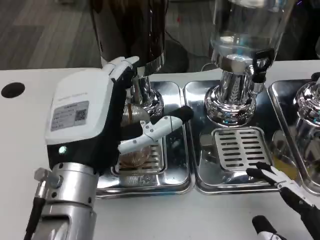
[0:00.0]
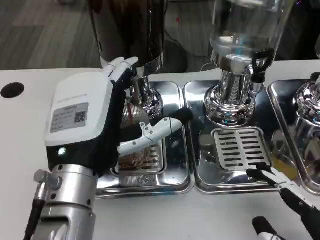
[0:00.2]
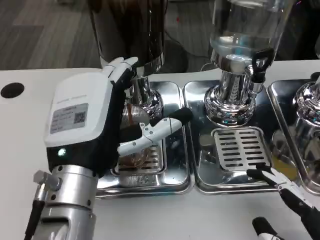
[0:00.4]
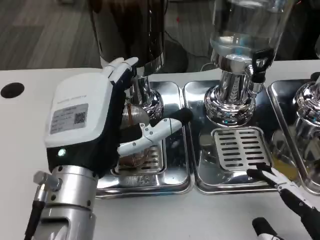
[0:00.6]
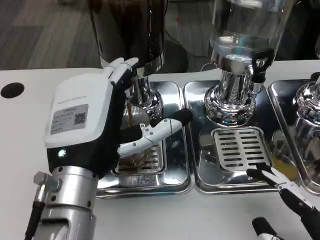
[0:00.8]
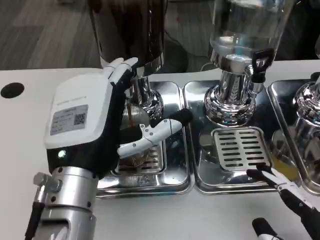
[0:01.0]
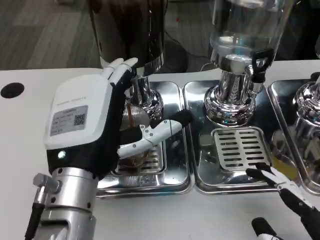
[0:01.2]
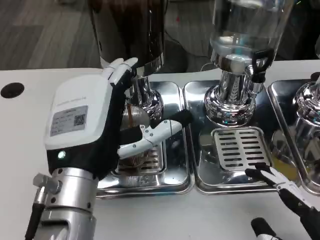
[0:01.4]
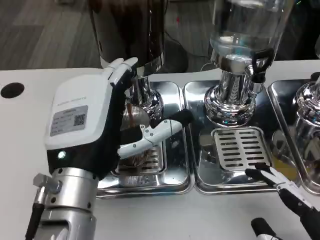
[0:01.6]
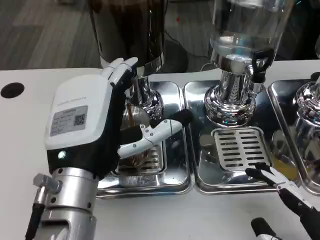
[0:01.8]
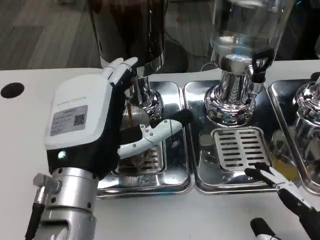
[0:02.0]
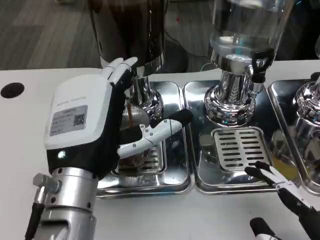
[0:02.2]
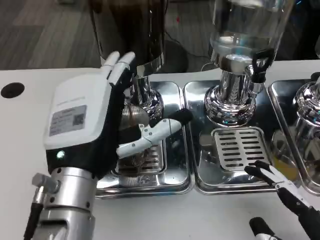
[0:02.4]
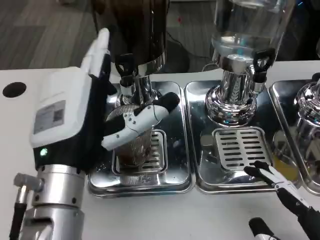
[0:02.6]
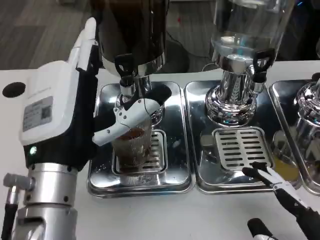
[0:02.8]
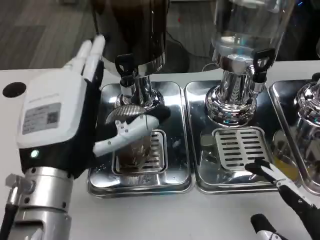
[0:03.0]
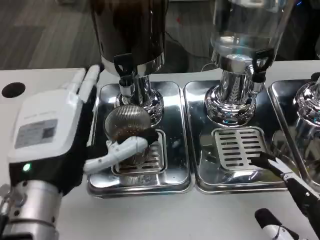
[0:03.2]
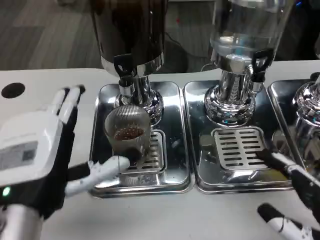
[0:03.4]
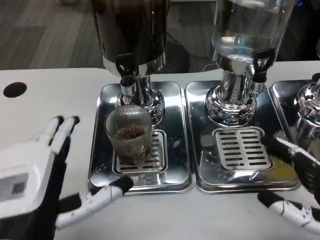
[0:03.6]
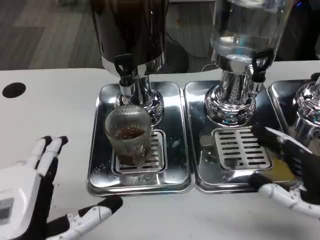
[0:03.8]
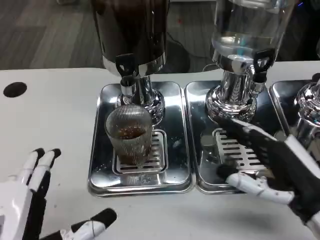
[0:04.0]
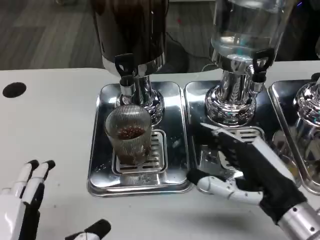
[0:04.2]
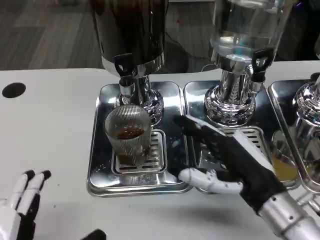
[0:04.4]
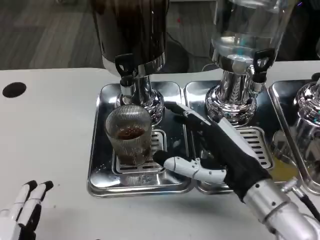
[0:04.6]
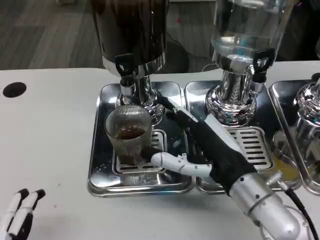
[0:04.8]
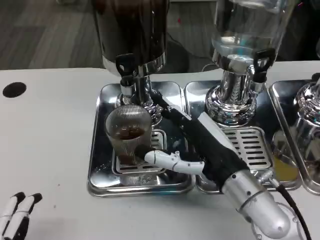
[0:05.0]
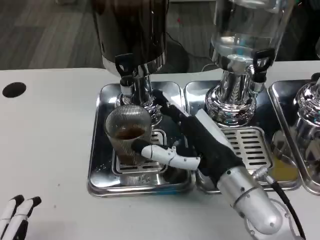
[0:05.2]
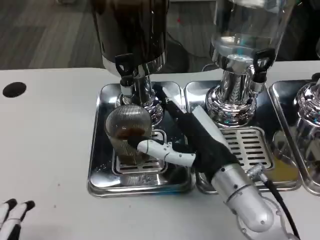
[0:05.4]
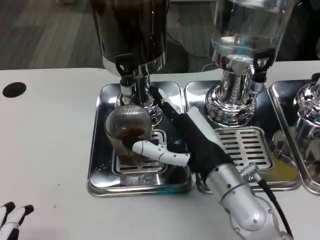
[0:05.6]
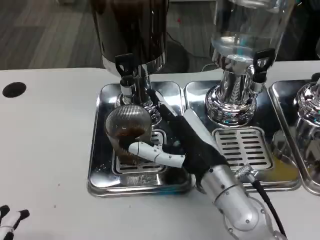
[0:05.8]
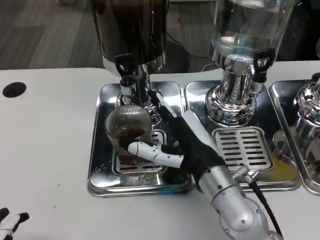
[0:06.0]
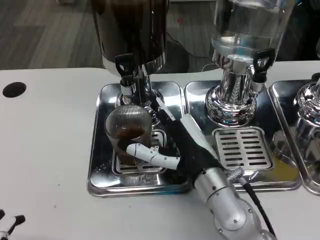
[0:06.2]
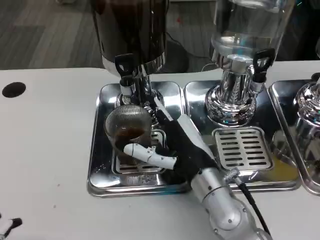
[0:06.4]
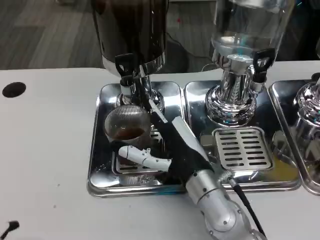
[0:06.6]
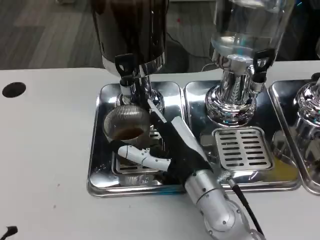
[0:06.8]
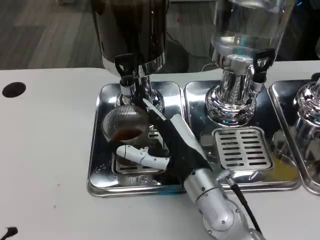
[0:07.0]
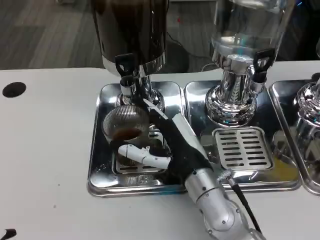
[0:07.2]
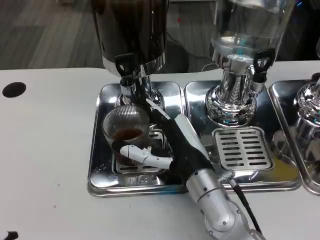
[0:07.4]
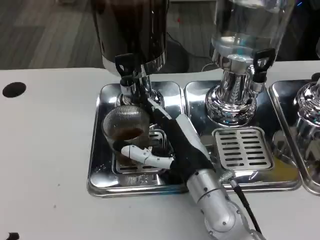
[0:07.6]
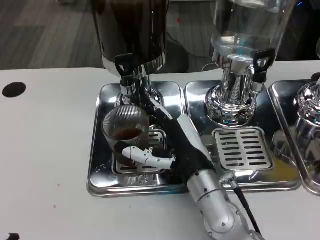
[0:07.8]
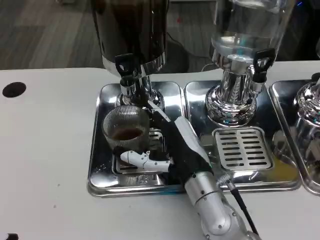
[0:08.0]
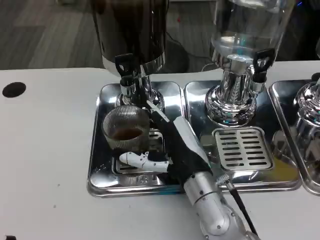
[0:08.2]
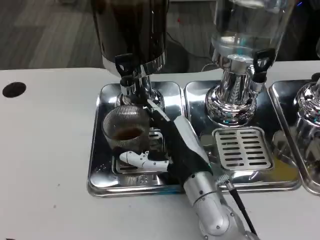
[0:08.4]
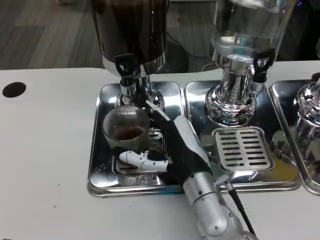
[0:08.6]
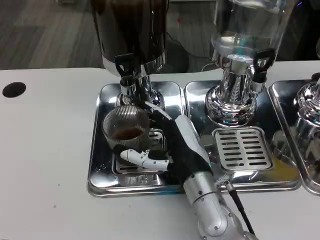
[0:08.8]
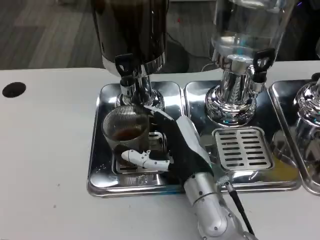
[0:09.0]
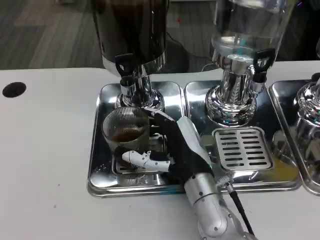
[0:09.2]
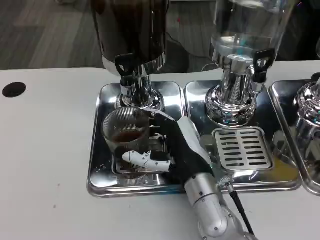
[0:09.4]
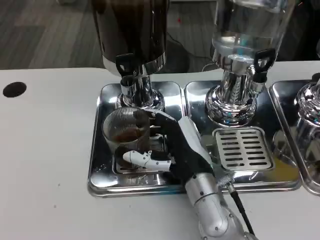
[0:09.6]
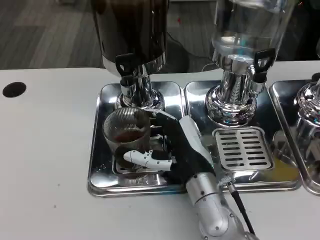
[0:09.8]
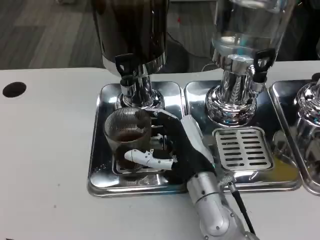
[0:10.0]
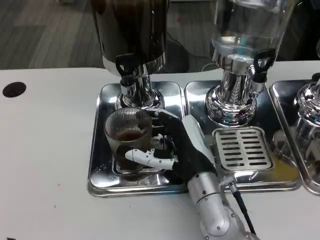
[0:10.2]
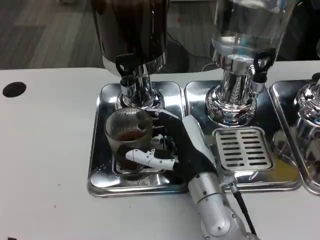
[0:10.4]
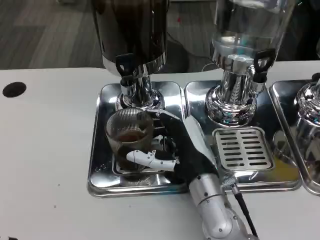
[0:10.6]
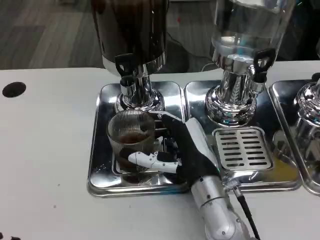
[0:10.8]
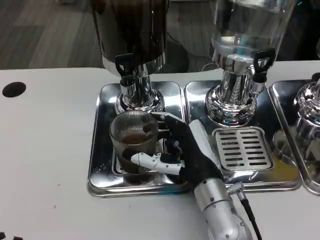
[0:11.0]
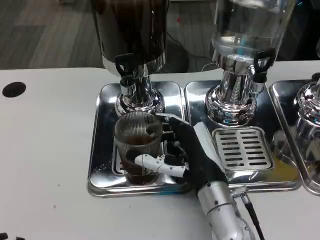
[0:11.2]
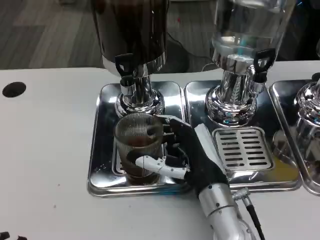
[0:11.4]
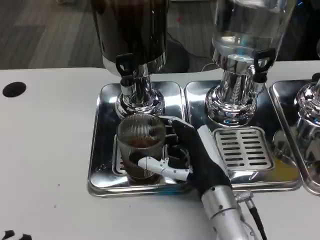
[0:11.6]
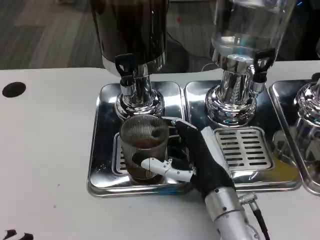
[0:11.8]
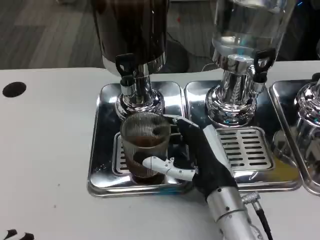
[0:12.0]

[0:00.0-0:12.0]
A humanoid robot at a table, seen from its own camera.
Task of the whole recording: Grasp the cup under the faucet to collect the drink, then remove the cup.
0:00.0 to 0:01.6: Neither hand changes place.
0:03.0 to 0:04.4: The left hand heads backward, covering some 15 cm, while the right hand heads forward and to the left, covering some 15 cm.
0:04.4 to 0:06.0: The right hand moves to the left, roughly 10 cm.
0:06.0 to 0:07.6: The hands make only small movements.
0:07.6 to 0:09.0: The two hands keep their place.
0:09.0 to 0:10.4: Both hands stay put.
0:10.4 to 0:12.0: The hands stay close to where they were, moving slightly.

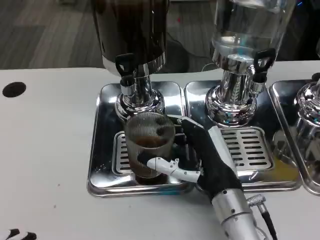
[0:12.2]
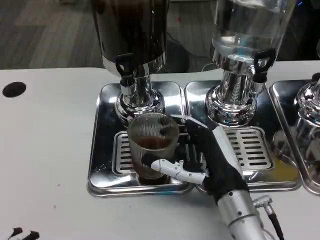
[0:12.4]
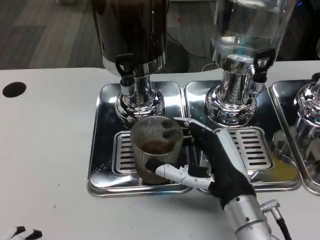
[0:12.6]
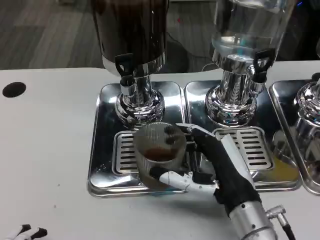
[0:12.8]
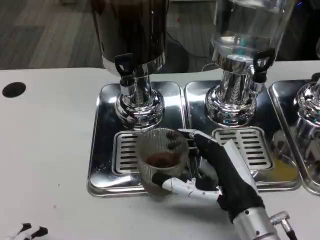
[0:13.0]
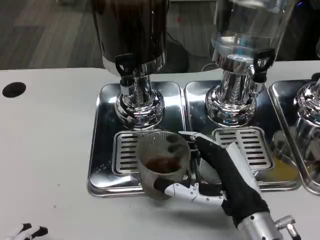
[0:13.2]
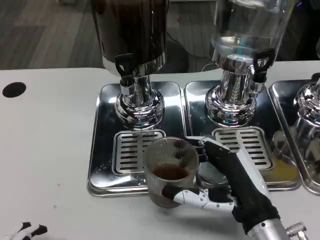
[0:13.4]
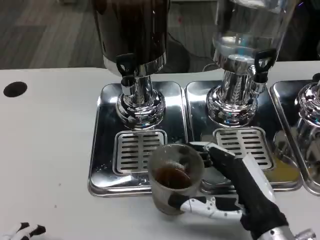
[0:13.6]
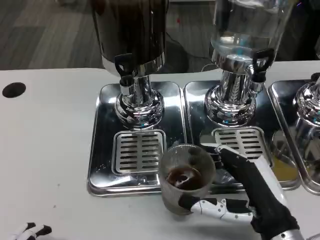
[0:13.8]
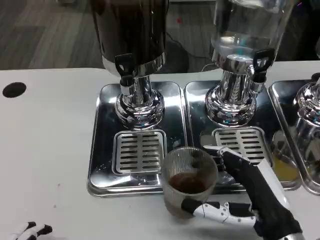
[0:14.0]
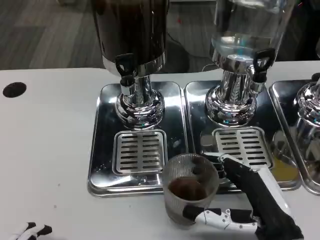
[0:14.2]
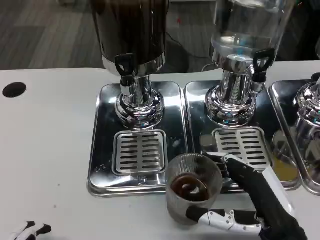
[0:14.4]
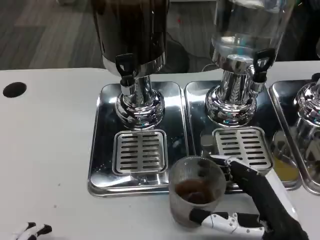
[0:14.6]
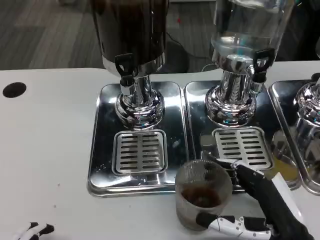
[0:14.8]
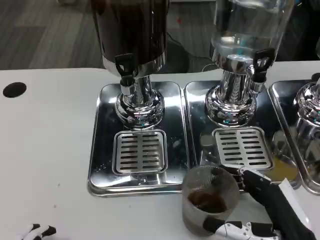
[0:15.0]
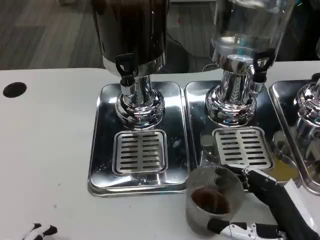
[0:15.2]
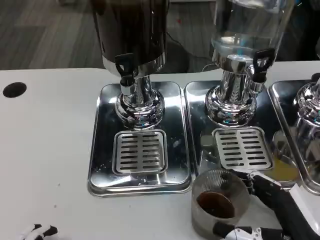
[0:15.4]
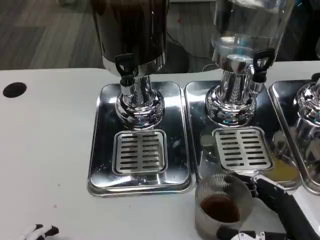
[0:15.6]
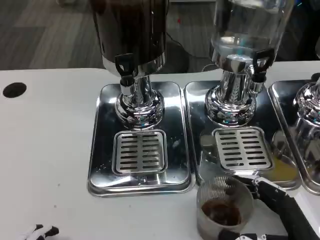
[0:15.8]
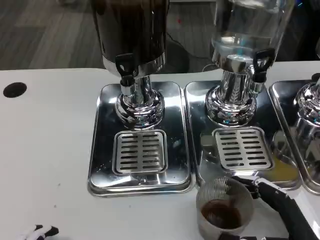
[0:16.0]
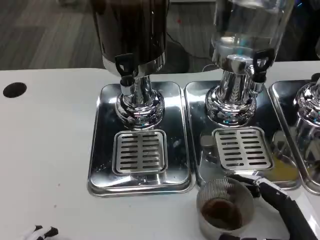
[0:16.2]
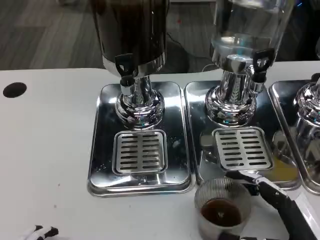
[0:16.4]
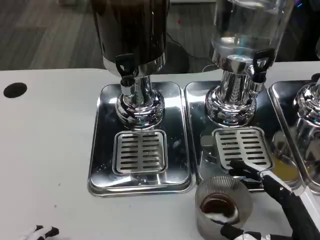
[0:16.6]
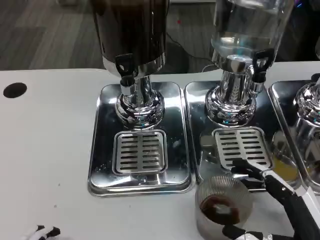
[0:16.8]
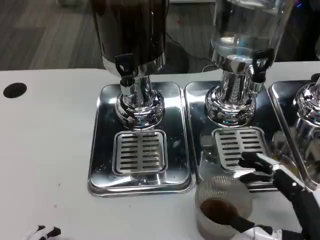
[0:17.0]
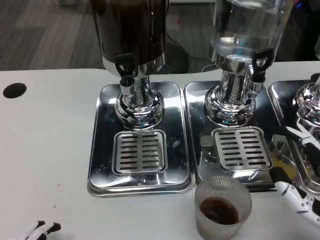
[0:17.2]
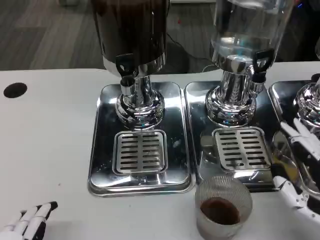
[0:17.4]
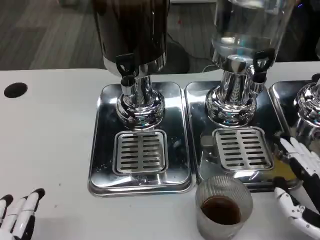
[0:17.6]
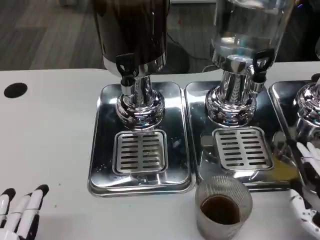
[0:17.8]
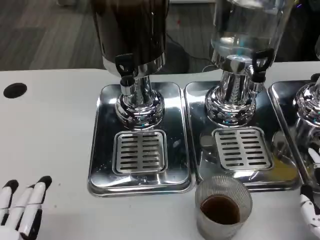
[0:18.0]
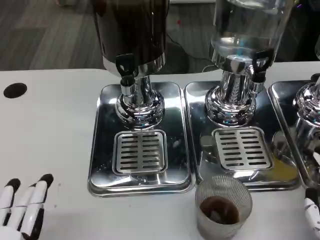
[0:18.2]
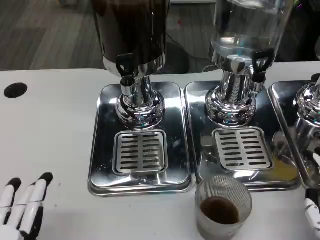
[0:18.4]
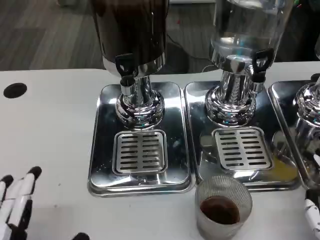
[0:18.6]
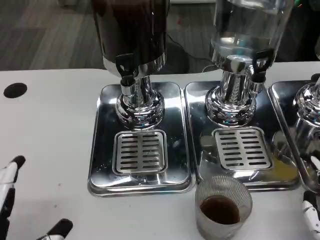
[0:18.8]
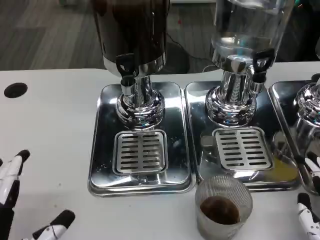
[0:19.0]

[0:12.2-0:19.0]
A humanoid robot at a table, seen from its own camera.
Task of the whole recording: Grasp the cup under the faucet to collect the drink, then remove the cup.
0:12.2 to 0:13.6: The right hand goes about 10 cm to the right and backward.
0:13.6 to 0:15.0: The right hand shifts by about 5 cm.
0:15.0 to 0:16.2: The hands make only small movements.
0:16.2 to 0:17.6: The right hand ends up roughly 5 cm from where it was.
0:17.6 to 0:19.0: The left hand shifts by about 5 cm.

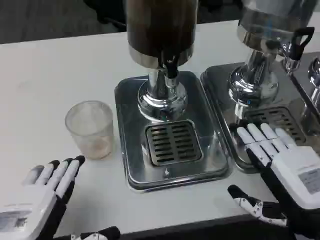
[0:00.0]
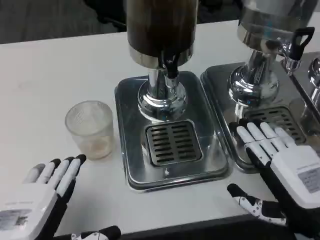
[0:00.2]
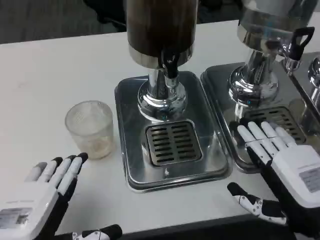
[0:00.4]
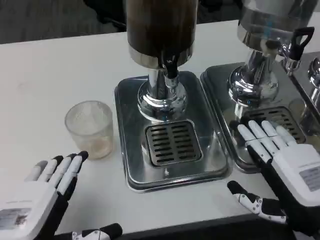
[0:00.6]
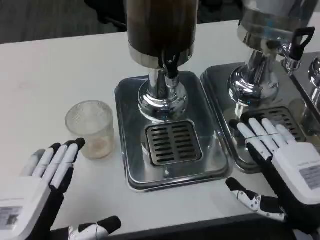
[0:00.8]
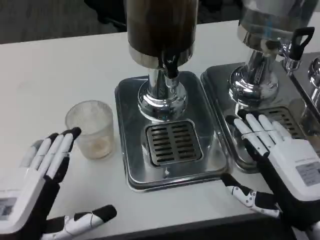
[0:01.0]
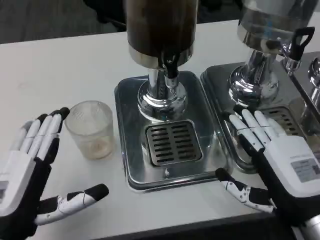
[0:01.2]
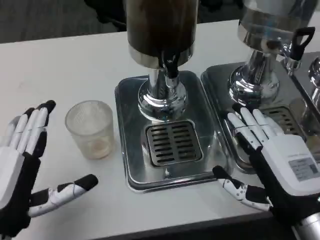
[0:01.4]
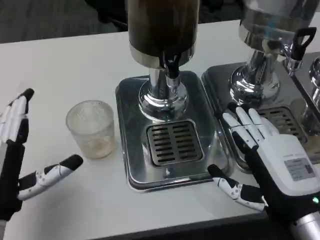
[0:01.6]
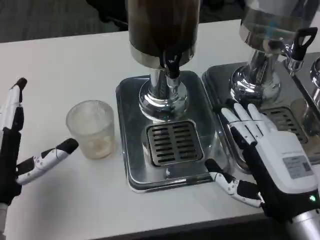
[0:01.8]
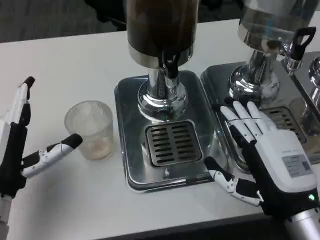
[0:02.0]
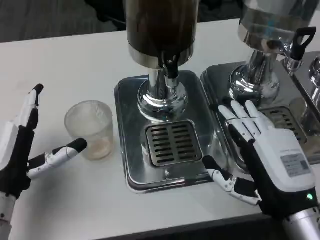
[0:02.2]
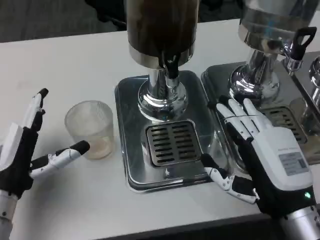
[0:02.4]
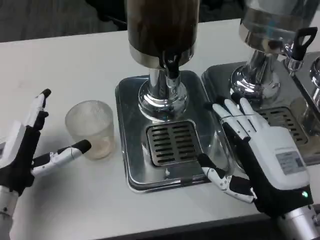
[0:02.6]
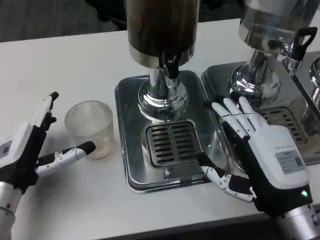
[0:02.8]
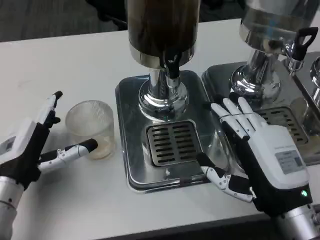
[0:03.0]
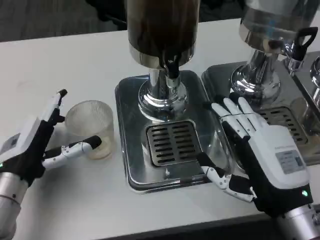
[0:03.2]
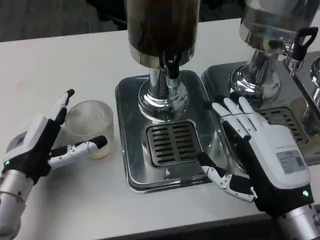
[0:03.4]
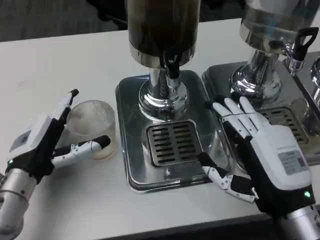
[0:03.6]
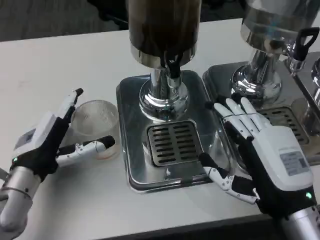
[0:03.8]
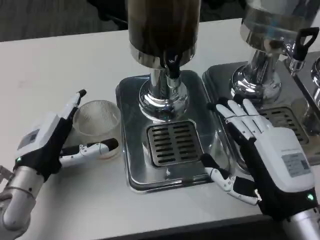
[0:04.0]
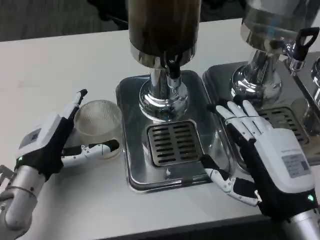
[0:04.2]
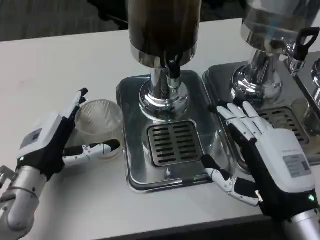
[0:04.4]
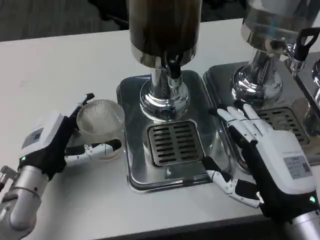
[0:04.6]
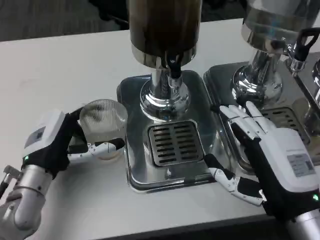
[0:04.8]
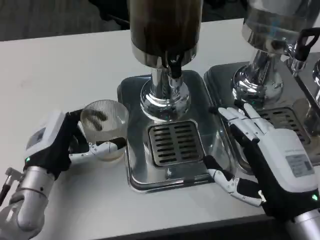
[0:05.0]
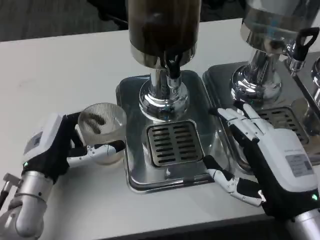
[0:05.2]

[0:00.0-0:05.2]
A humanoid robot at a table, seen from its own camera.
Task of the whole recording: Grasp the cup under the faucet to collect the drink, then remove the cup.
0:00.0 to 0:01.8: The left hand travels forward by roughly 10 cm.
0:01.8 to 0:03.4: The left hand is displaced forward by approximately 5 cm.
